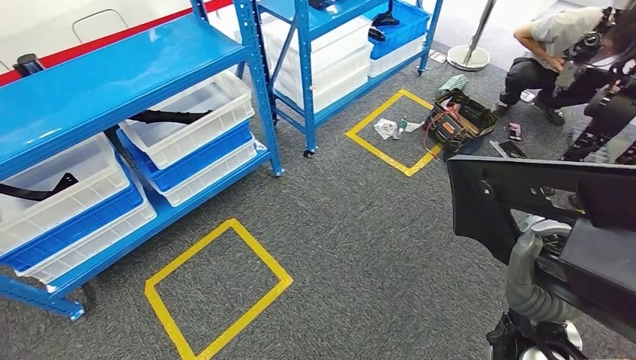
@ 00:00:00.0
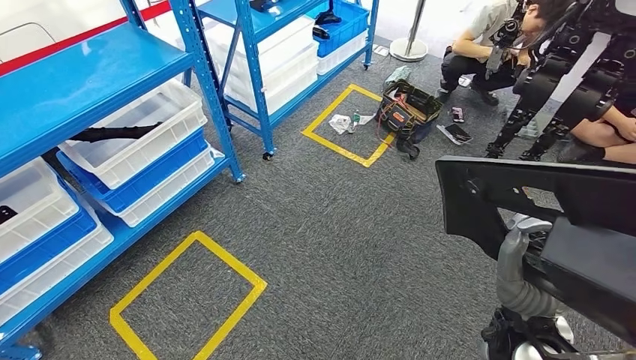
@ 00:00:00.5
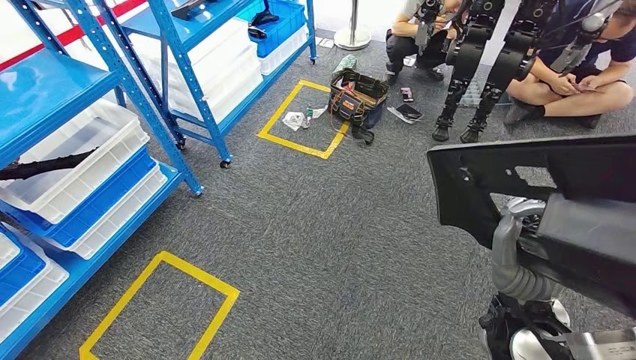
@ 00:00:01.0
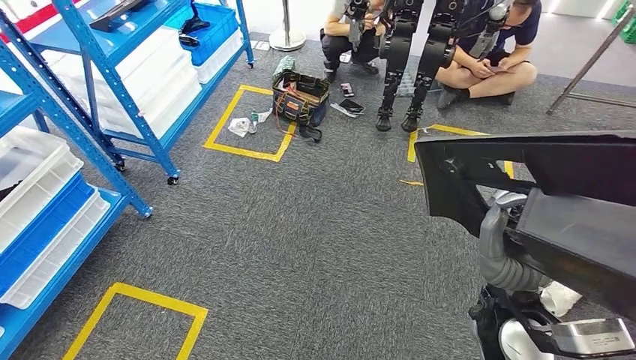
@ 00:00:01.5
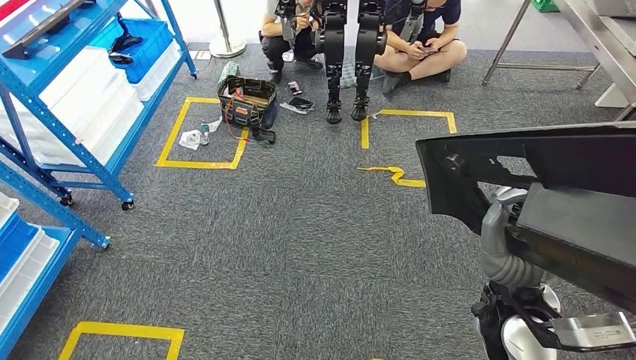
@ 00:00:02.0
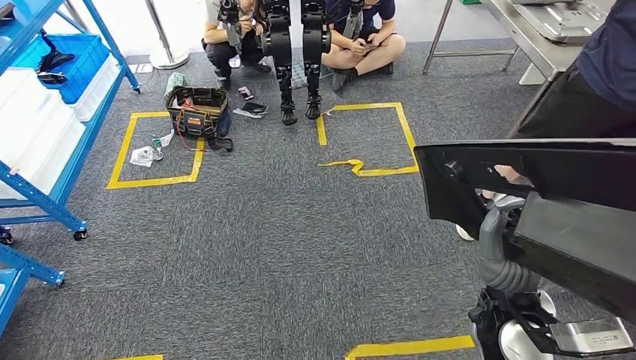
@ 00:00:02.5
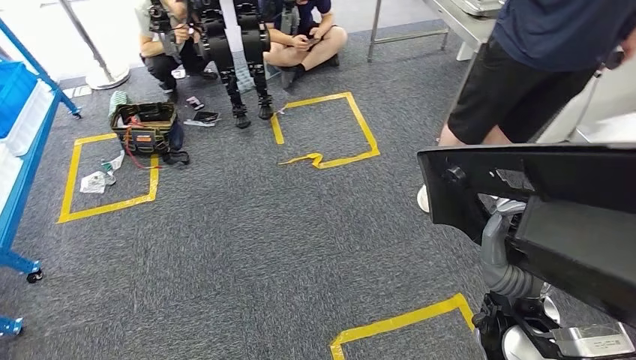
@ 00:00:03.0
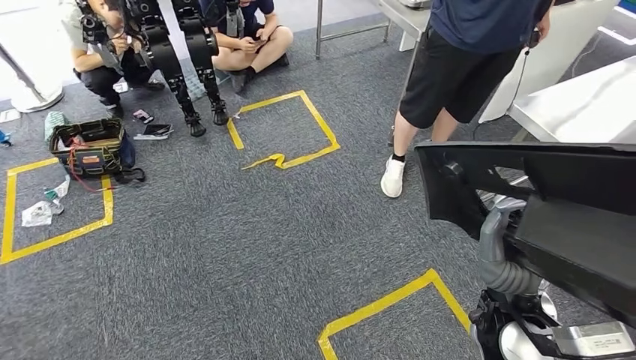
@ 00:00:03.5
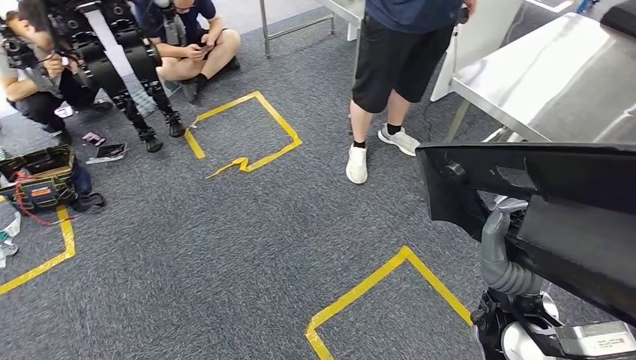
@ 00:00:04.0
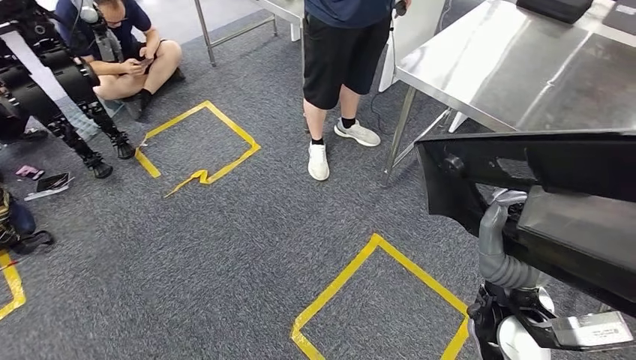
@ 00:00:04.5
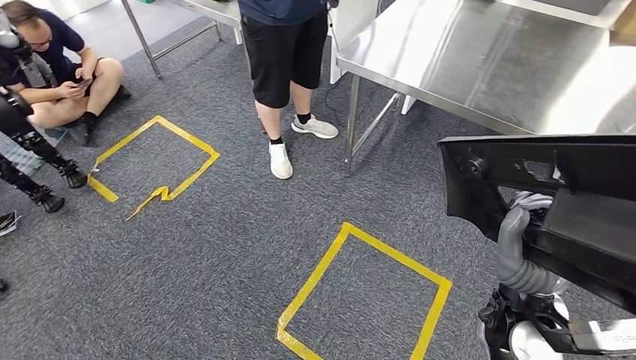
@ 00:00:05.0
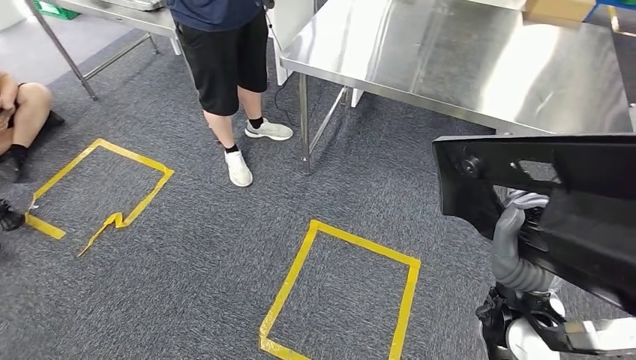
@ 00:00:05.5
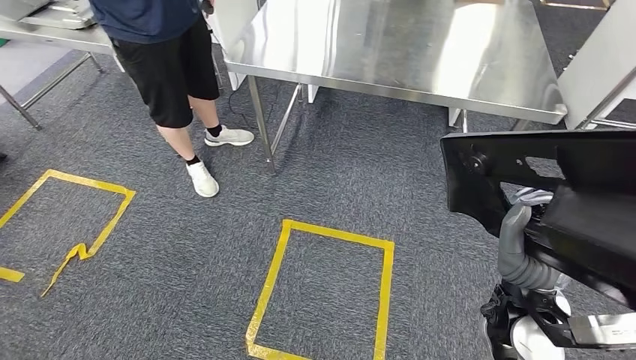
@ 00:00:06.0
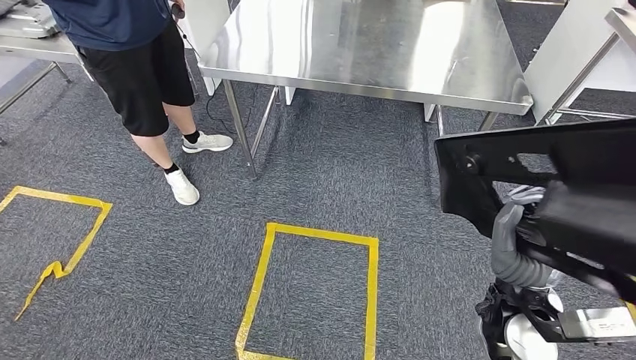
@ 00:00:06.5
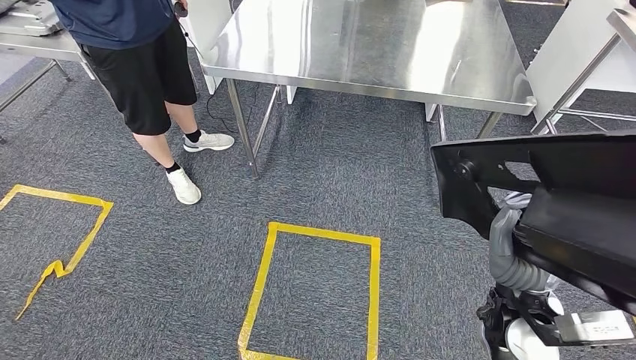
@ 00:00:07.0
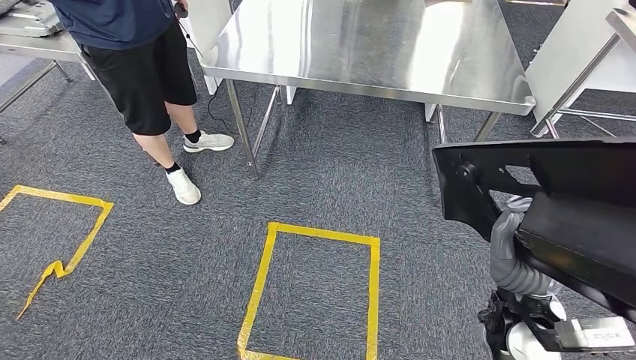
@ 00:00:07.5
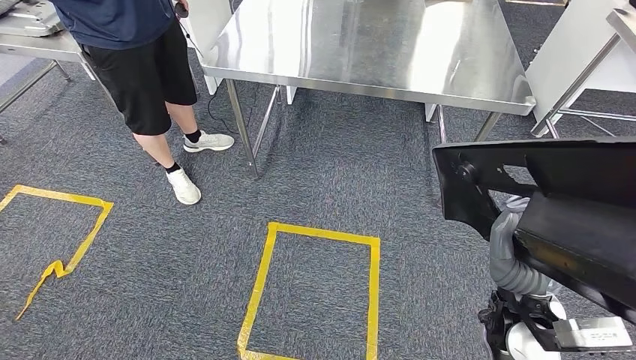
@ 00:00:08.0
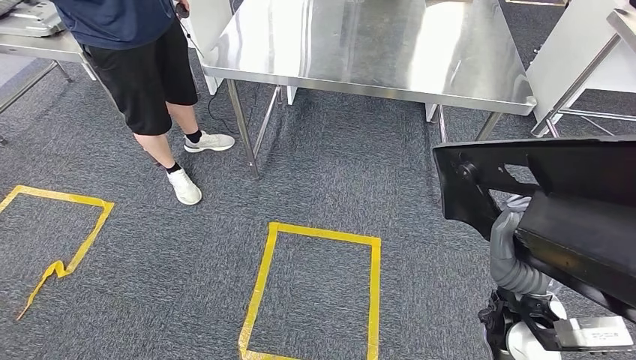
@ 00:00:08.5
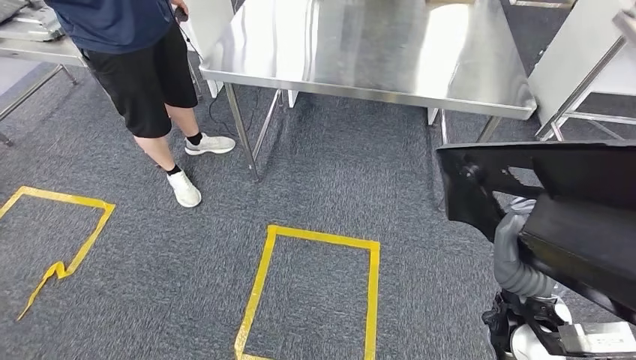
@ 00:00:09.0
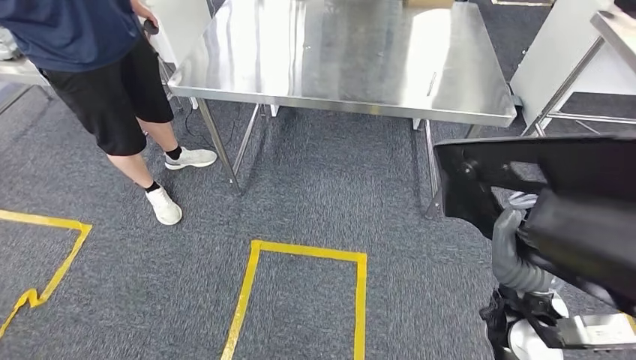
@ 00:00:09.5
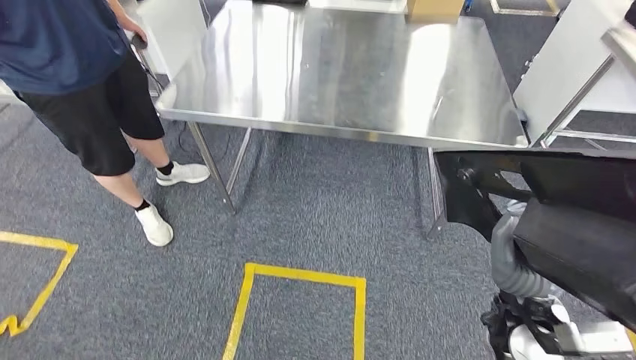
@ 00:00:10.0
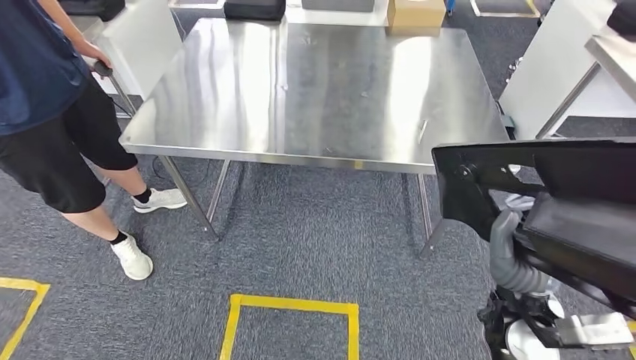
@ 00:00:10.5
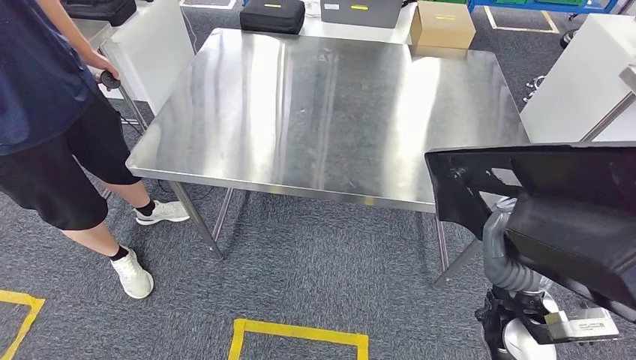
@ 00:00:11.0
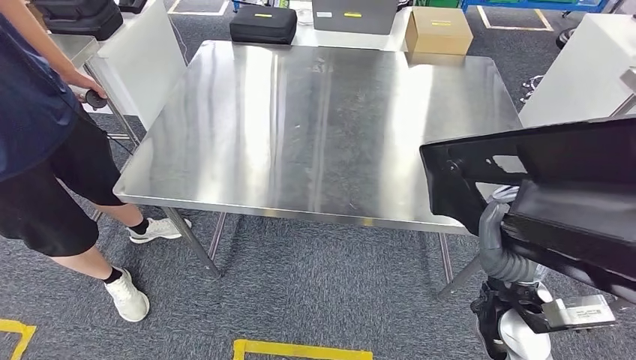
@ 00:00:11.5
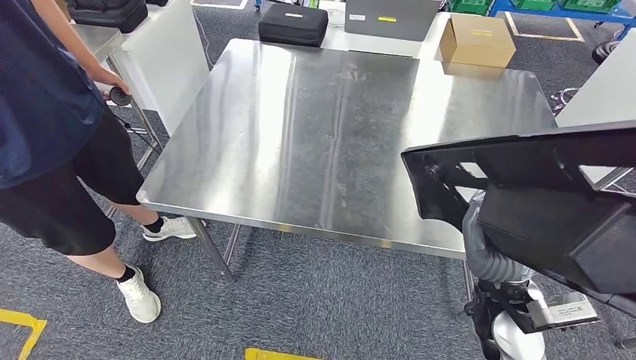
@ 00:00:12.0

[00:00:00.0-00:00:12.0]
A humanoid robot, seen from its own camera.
Step, 00:00:00.0 to 00:00:11.0: Move the large material to the workbench.

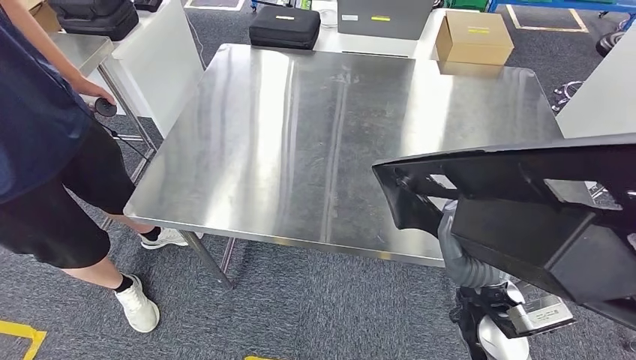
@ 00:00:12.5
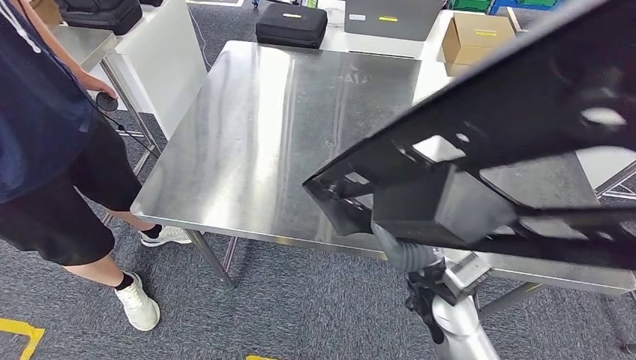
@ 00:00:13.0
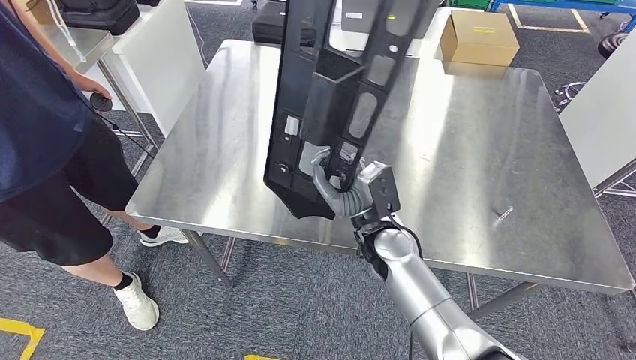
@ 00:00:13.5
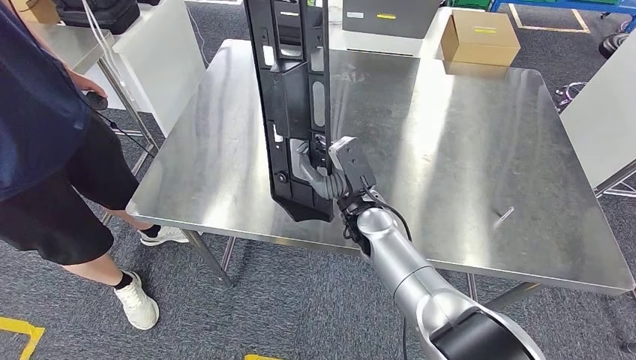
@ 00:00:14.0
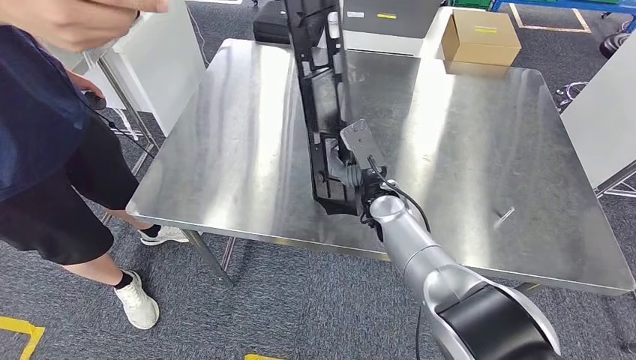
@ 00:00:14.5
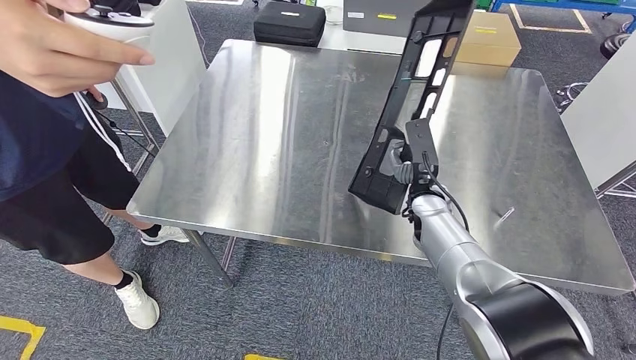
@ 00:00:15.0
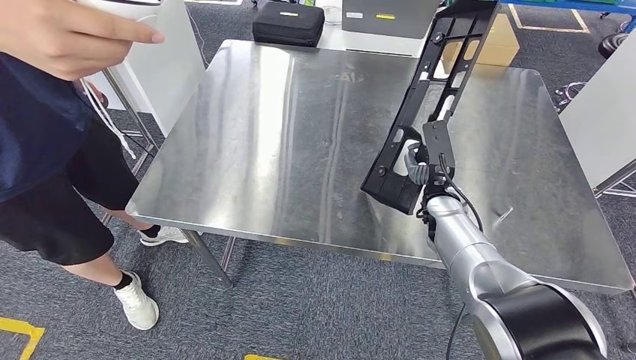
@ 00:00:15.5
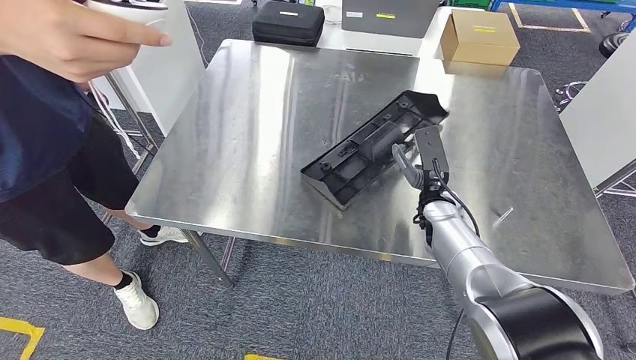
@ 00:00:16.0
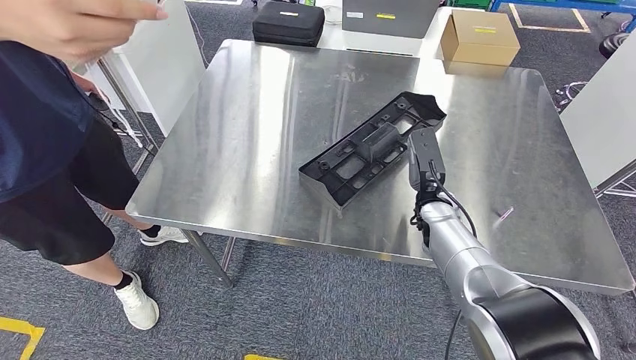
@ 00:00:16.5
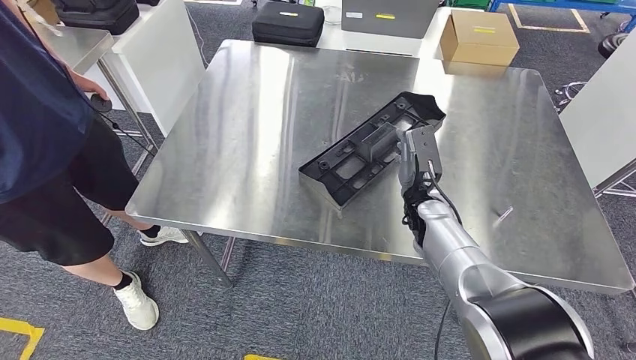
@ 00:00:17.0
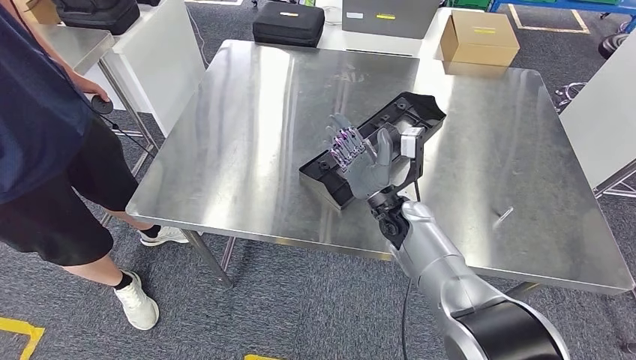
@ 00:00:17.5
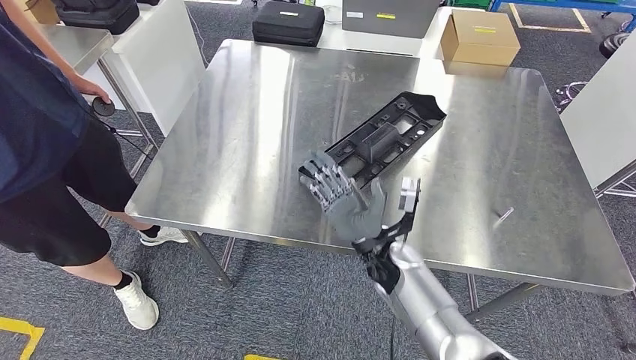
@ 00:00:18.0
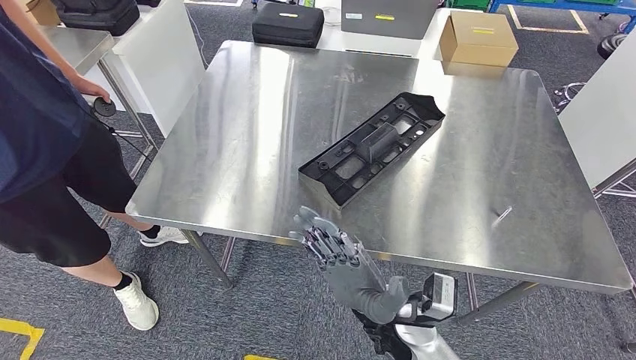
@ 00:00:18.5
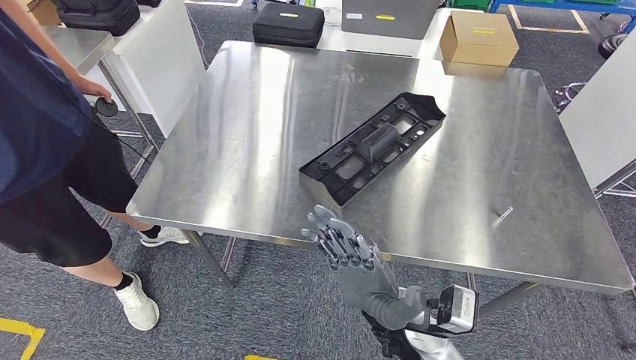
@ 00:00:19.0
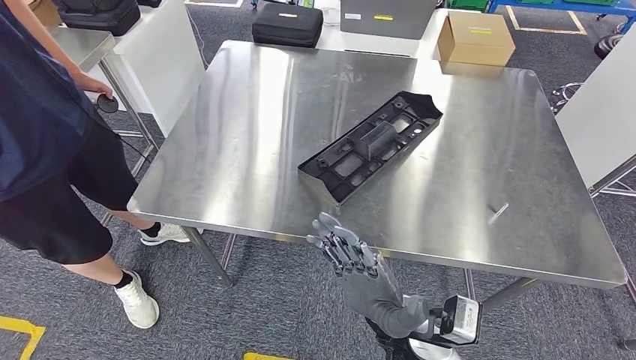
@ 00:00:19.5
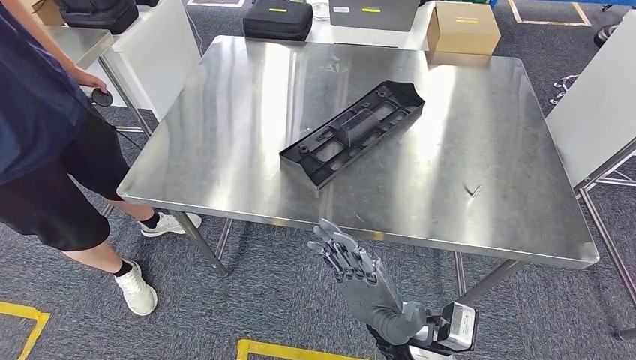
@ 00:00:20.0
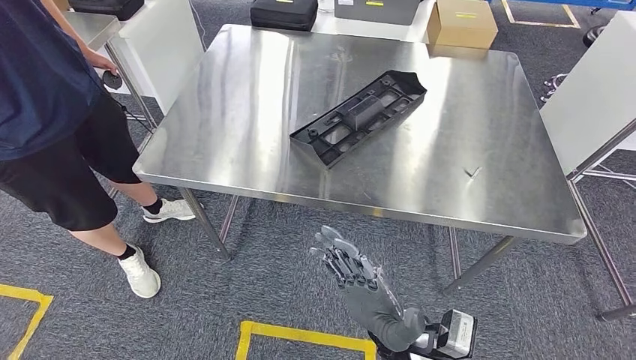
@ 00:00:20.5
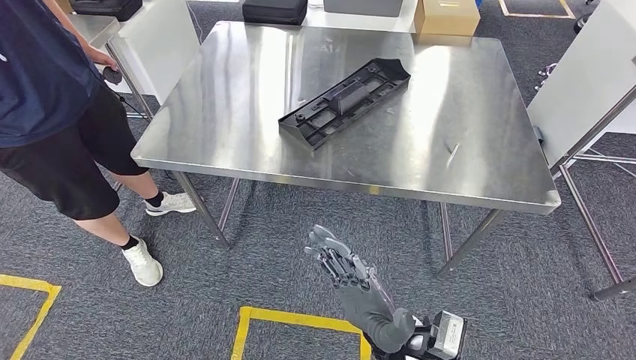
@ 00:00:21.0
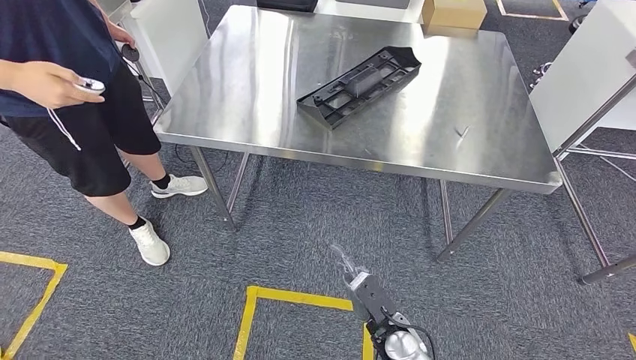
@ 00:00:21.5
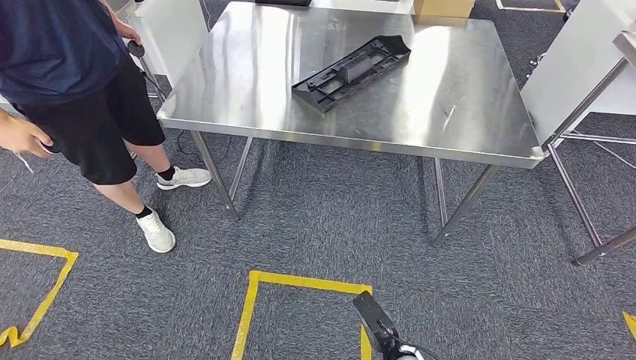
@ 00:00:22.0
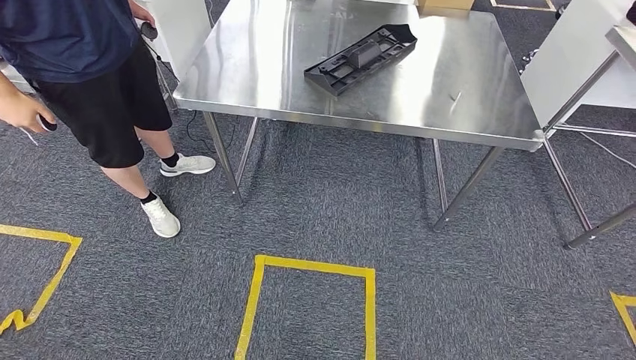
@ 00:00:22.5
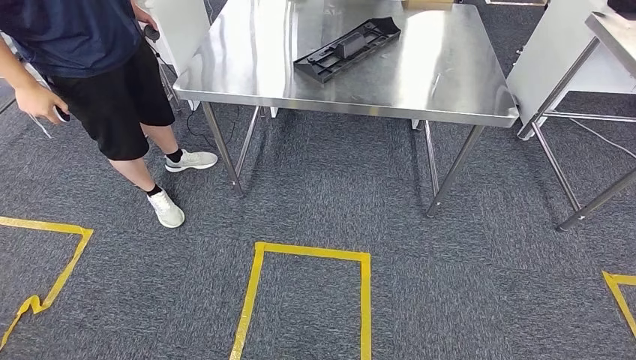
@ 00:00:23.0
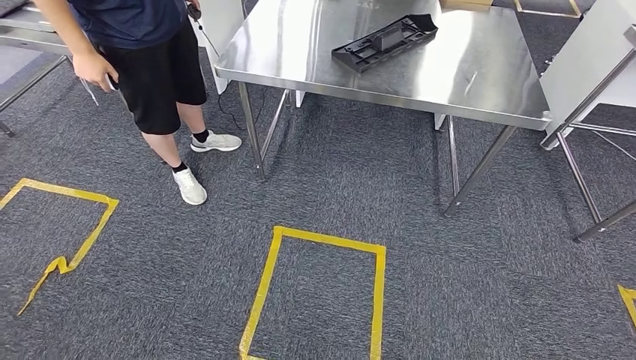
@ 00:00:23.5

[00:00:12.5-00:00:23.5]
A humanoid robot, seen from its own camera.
Step, 00:00:12.5 to 00:00:19.5: Insert the large material into the corresponding slot on the workbench.
00:00:14.5 to 00:00:16.0: The right hand travels to the right by some 10 cm.
00:00:16.0 to 00:00:18.0: The right hand moves to the left and backward, some 15 cm.
